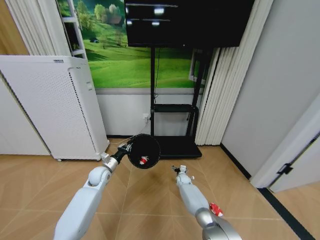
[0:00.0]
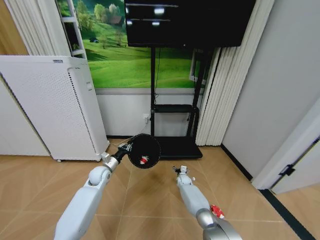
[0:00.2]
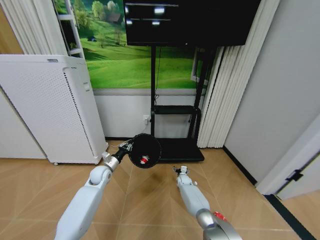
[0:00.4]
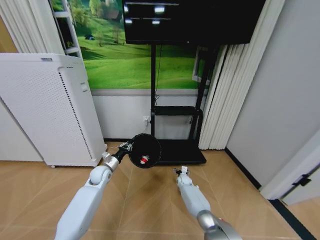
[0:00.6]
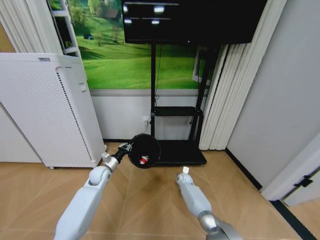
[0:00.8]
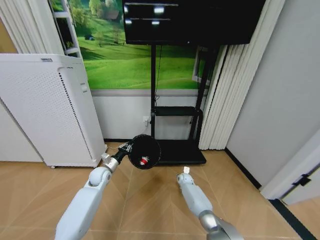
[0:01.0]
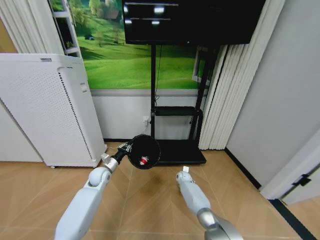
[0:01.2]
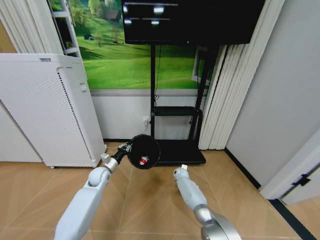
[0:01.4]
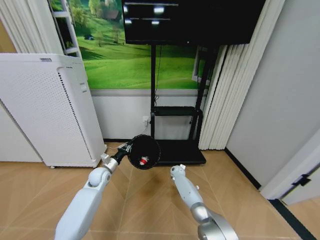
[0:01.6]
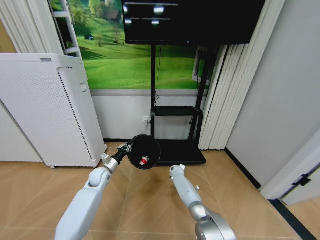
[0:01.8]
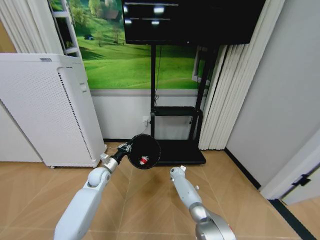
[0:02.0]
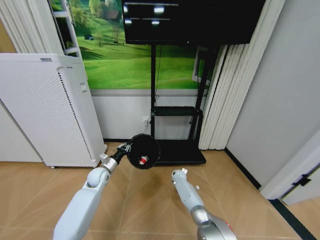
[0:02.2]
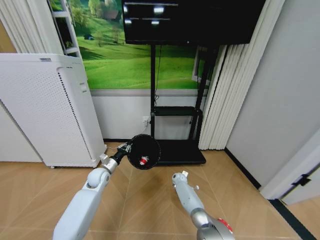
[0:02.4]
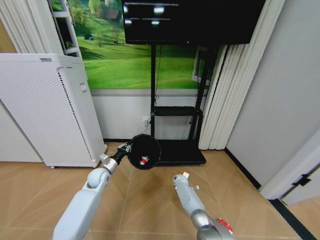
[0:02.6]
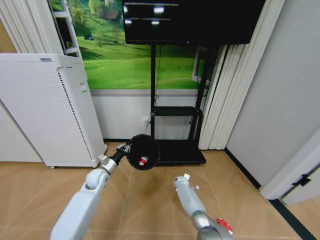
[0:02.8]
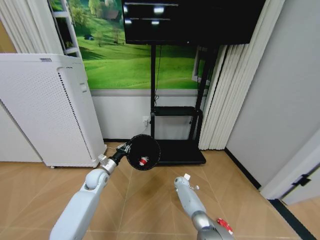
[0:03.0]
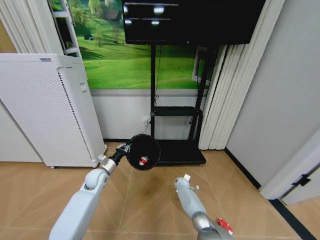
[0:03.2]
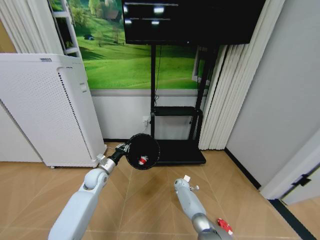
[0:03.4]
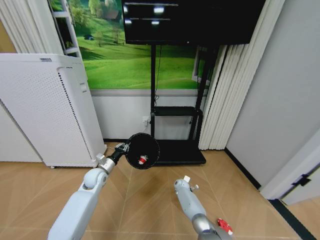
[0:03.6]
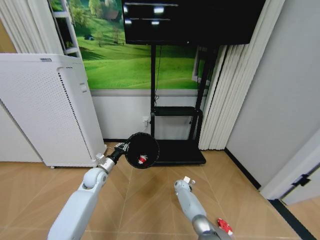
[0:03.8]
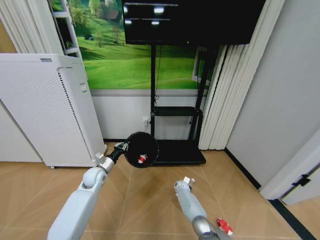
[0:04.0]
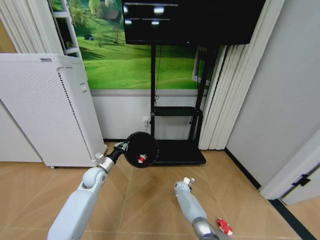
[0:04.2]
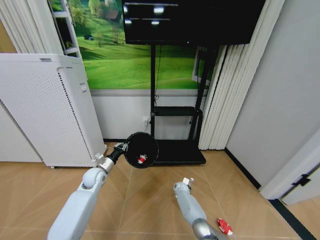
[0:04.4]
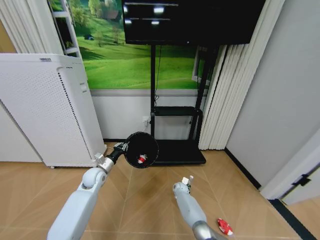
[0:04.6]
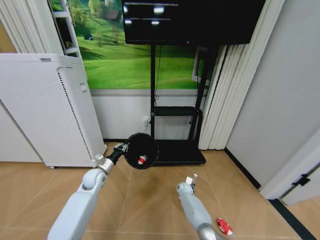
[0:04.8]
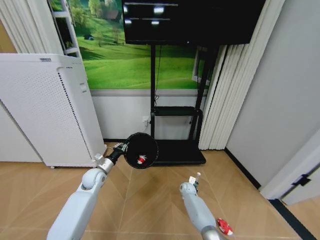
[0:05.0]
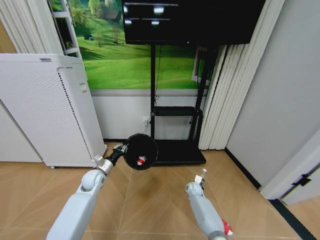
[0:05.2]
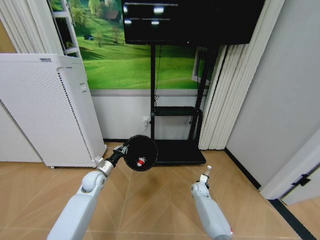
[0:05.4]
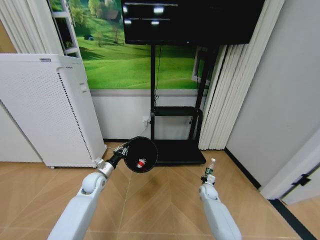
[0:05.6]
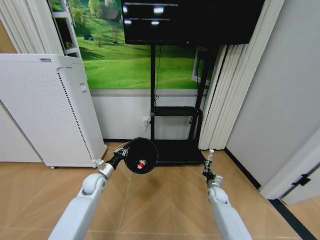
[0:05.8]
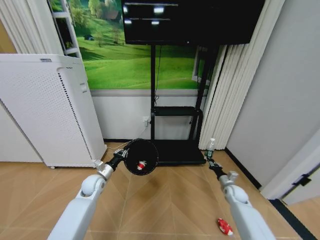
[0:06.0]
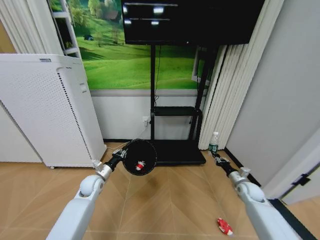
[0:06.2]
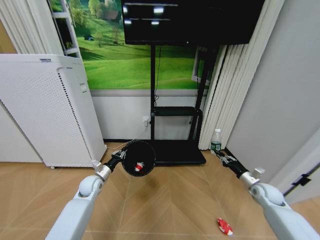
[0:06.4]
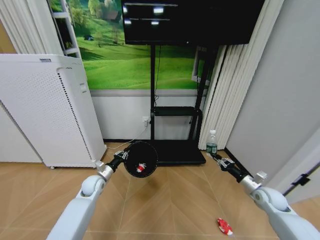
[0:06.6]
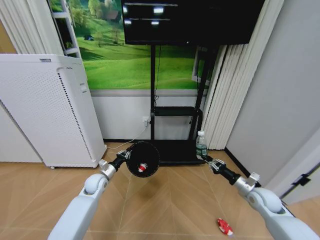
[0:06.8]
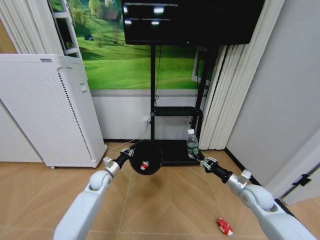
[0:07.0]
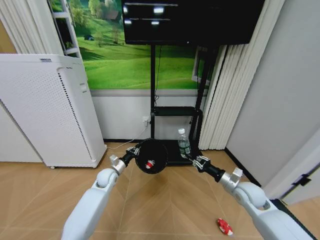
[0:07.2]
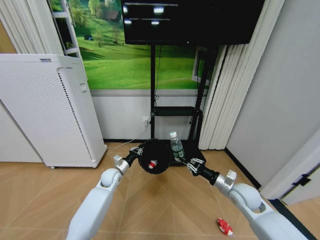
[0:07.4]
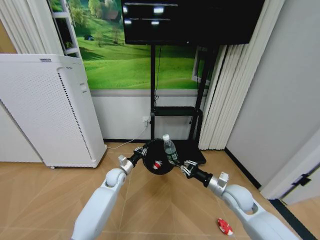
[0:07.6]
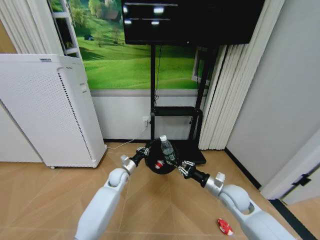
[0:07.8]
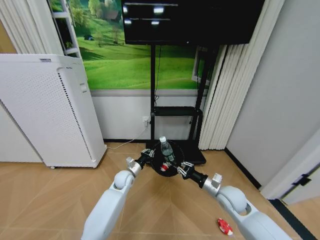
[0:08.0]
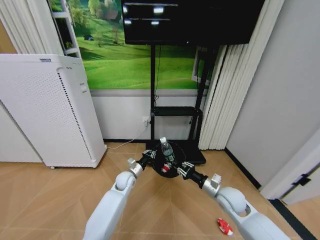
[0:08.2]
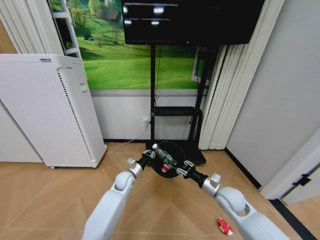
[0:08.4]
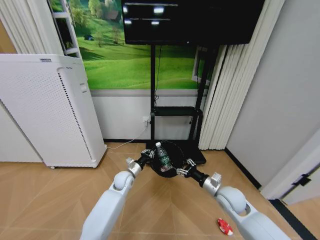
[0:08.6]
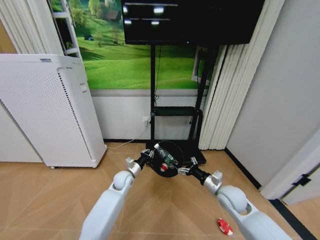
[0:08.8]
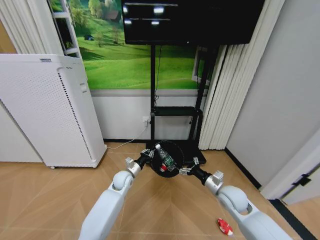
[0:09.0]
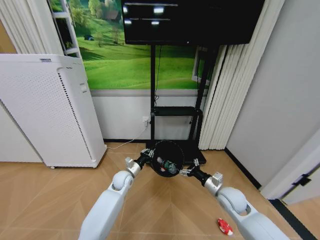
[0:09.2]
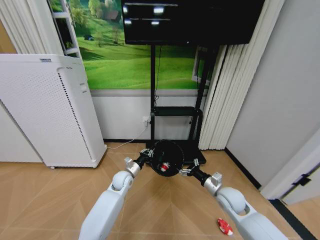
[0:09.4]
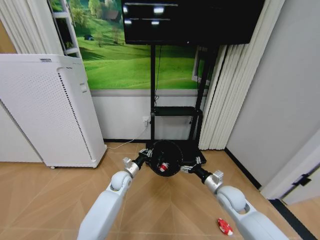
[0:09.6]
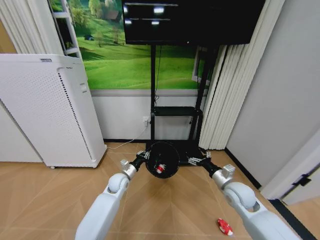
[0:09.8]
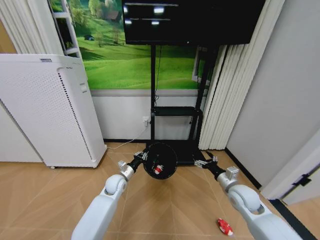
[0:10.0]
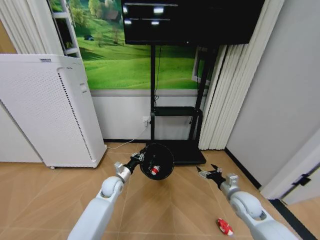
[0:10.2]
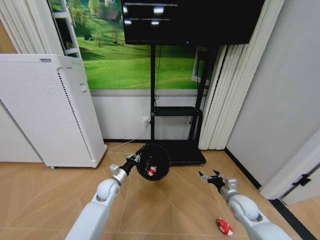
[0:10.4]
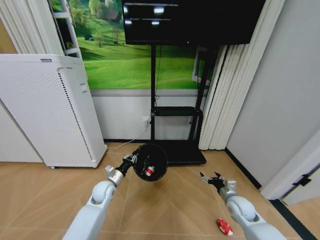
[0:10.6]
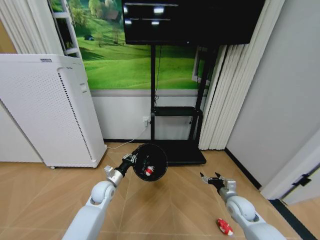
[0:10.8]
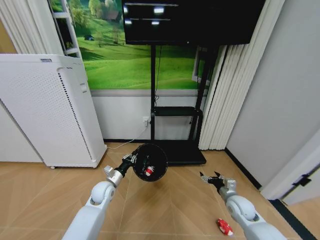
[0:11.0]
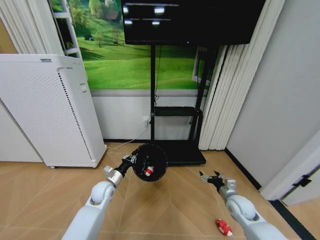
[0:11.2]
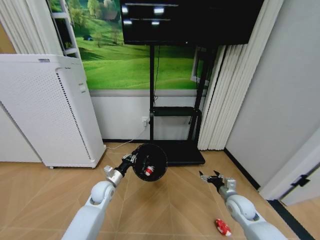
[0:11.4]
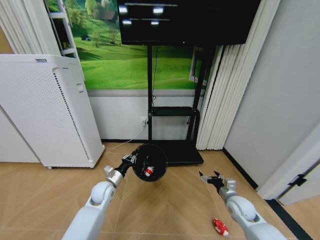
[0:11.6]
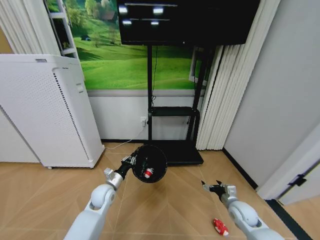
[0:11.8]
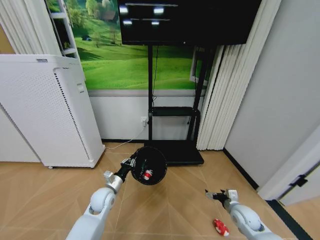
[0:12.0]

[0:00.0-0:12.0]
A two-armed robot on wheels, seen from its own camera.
Task of the whole recording: Pick up the trash bin and place the garbage on the floor into it.
0:00.0 to 0:01.6: The right gripper moves upward, about 5 cm.
0:01.6 to 0:03.0: The right gripper goes approximately 5 cm downward.
0:03.0 to 0:04.4: The right gripper closes its fingers.
0:04.4 to 0:06.0: The right gripper heads to the right, covering roughly 20 cm.
0:06.0 to 0:07.6: The left gripper heads to the right, covering roughly 10 cm. Meanwhile the right gripper travels upward, backward and to the left by approximately 20 cm.
0:07.6 to 0:09.0: The right gripper opens its fingers.
0:09.0 to 0:10.4: The left gripper shifts approximately 5 cm to the left; the right gripper travels to the right and downward by approximately 10 cm.
0:10.4 to 0:12.0: The right gripper shifts by approximately 5 cm.

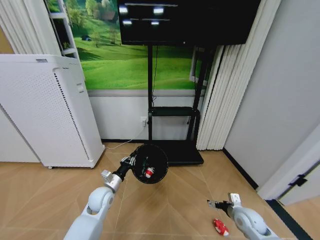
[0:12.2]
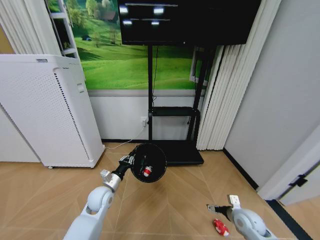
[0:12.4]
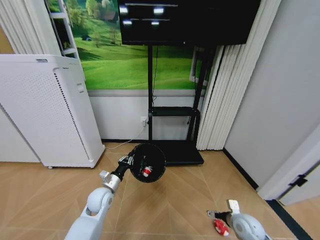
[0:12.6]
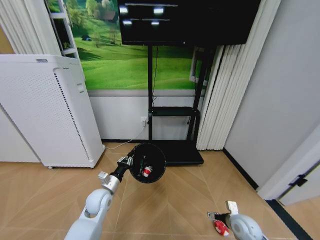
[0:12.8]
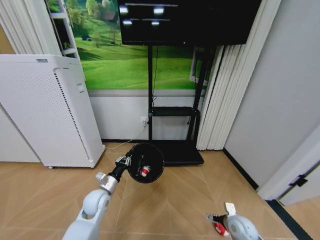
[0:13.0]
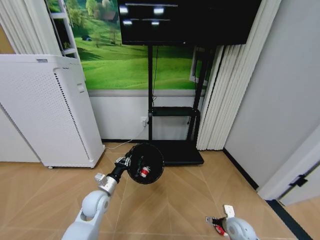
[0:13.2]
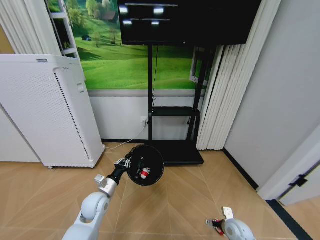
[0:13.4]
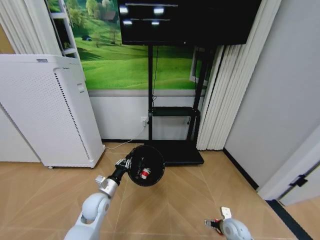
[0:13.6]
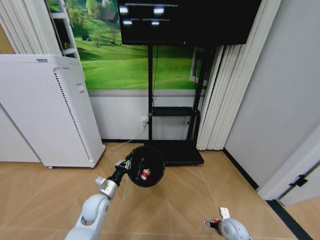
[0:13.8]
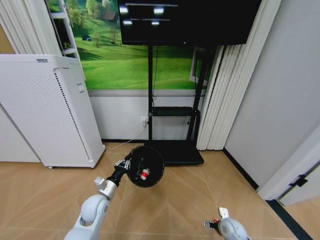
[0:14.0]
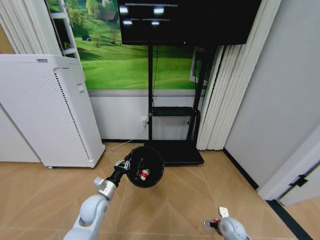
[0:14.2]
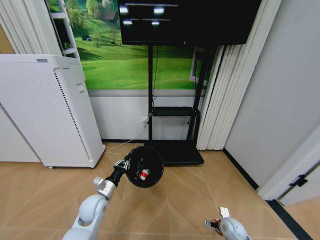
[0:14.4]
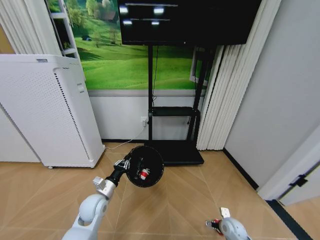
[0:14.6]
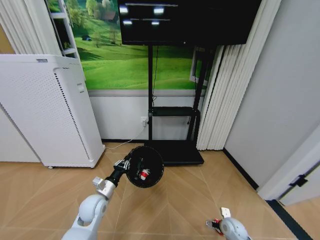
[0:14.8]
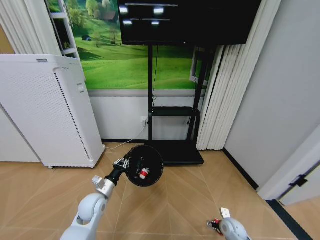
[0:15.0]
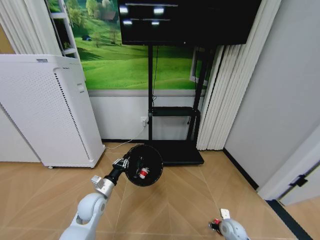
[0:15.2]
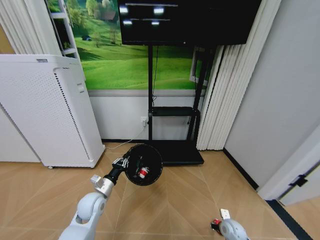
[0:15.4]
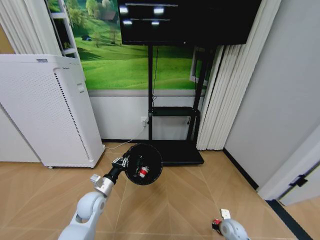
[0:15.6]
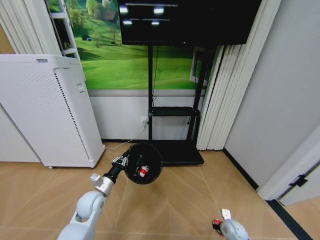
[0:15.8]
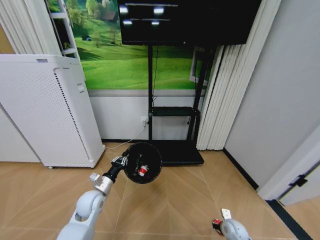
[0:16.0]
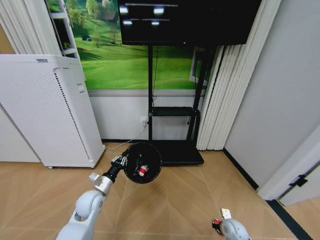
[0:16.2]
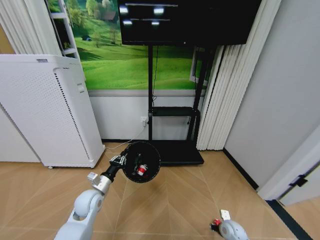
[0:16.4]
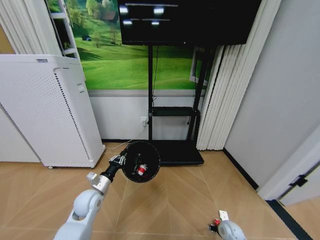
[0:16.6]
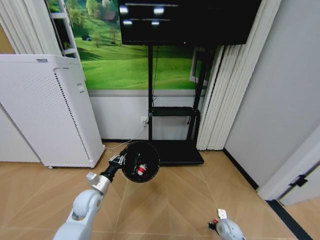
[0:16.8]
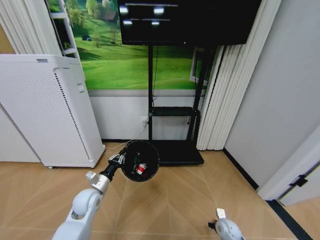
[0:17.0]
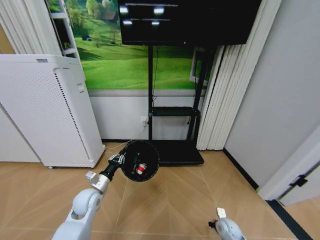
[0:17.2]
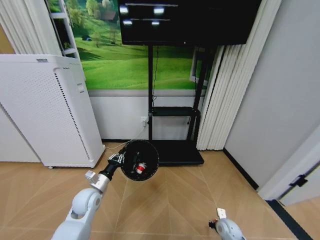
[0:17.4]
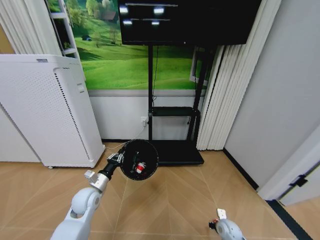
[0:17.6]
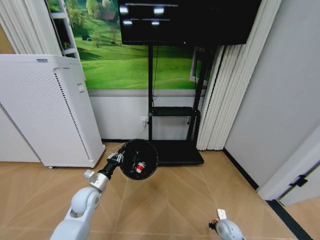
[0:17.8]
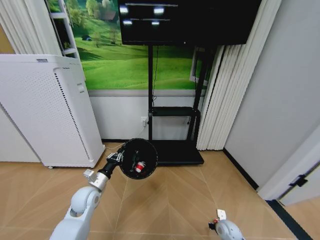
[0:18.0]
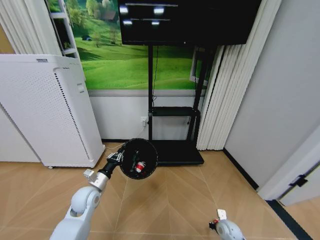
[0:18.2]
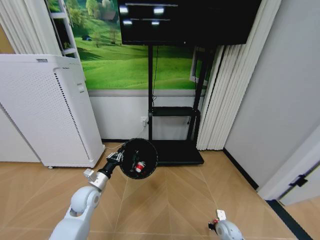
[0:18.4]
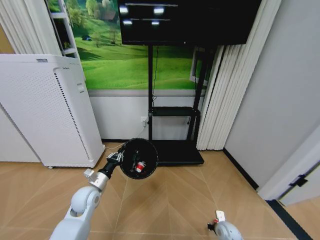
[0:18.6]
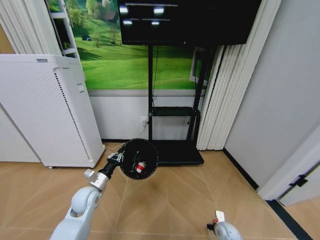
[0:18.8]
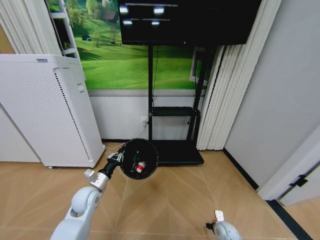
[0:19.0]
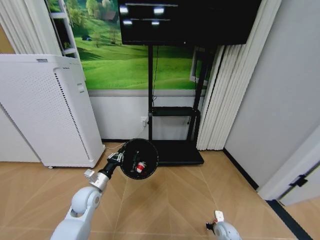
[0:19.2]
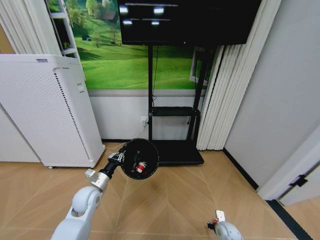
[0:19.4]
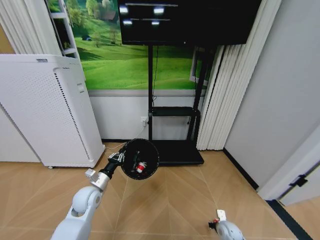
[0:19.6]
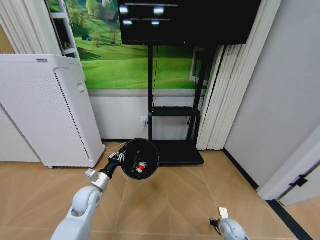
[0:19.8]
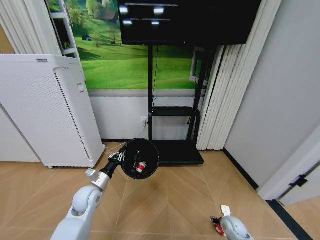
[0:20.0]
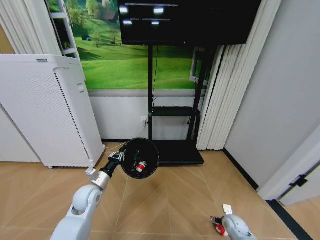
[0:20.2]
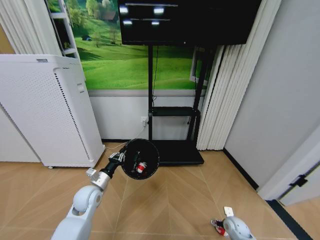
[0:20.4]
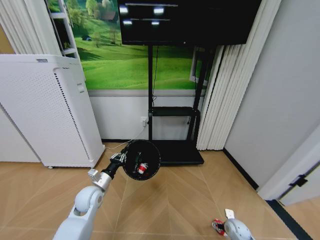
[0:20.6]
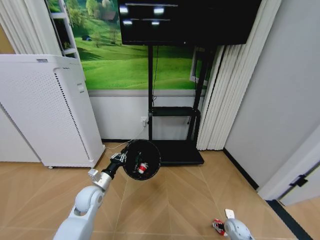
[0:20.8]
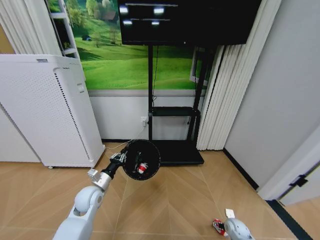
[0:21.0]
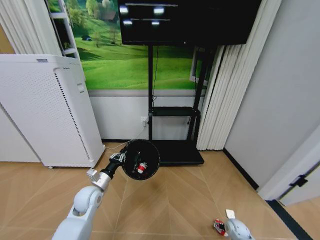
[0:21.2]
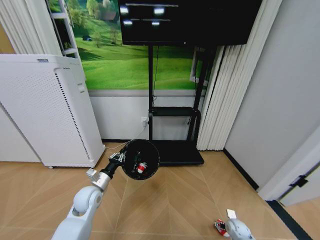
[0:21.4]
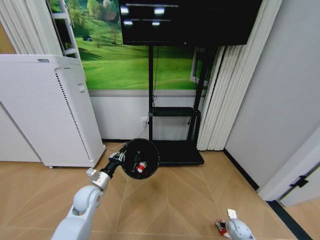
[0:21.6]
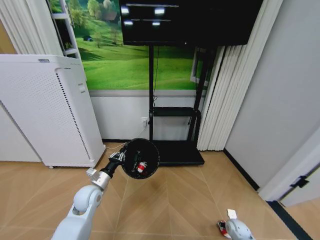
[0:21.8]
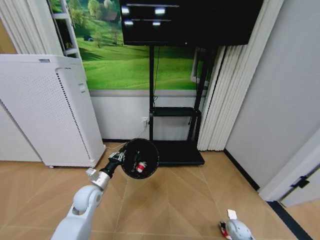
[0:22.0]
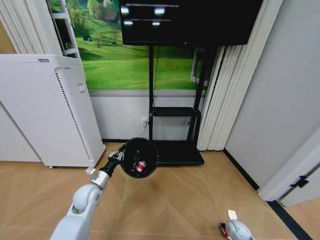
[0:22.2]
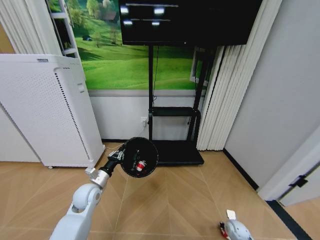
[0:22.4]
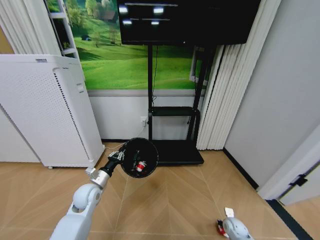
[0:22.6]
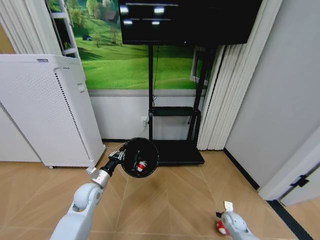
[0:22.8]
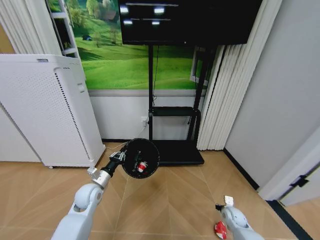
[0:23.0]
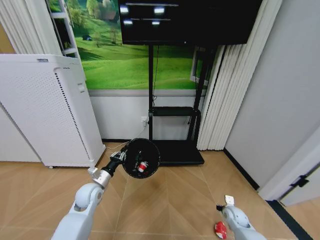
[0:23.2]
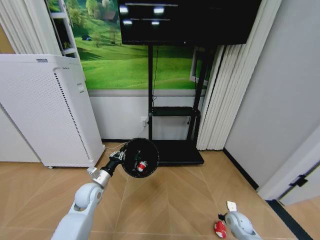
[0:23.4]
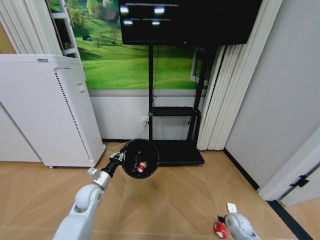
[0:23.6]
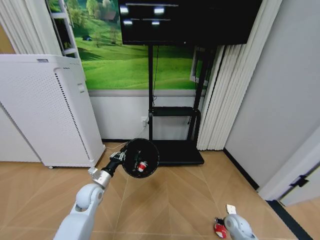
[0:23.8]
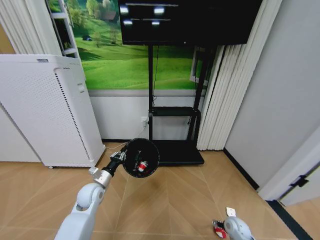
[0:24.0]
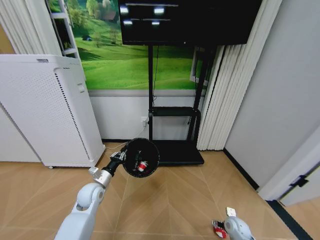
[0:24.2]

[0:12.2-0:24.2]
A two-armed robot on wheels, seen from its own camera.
Task of the whole recording: Pick up the trash bin and place the garbage on the floor into it.
0:12.2 to 0:13.8: The right gripper travels downward by some 10 cm.
0:13.8 to 0:15.2: There are only small adjustments of the grippers.
0:15.2 to 0:16.6: The right gripper closes and opens again.
0:16.6 to 0:18.2: The right gripper closes its fingers.
0:18.2 to 0:19.8: The right gripper opens up.
0:19.8 to 0:21.2: The right gripper shifts by about 5 cm, and opens up.
0:21.2 to 0:22.6: The right gripper closes up.
0:22.6 to 0:24.2: The right gripper opens up.
